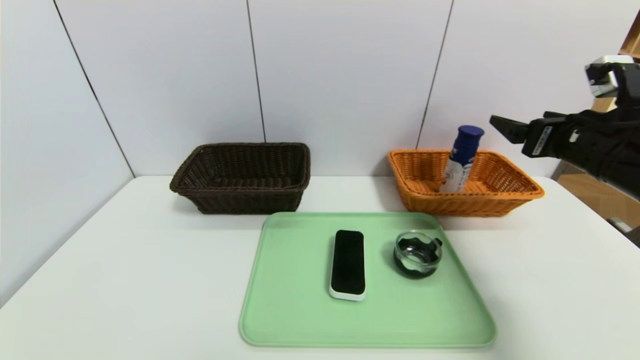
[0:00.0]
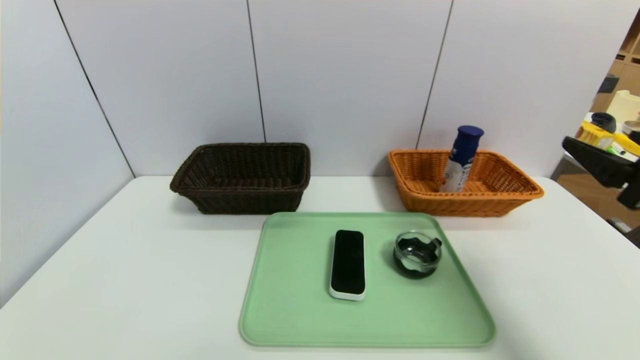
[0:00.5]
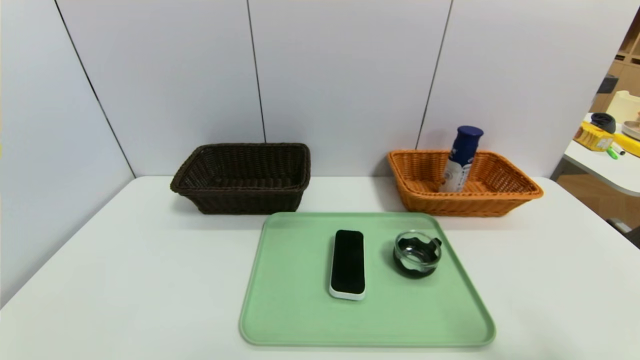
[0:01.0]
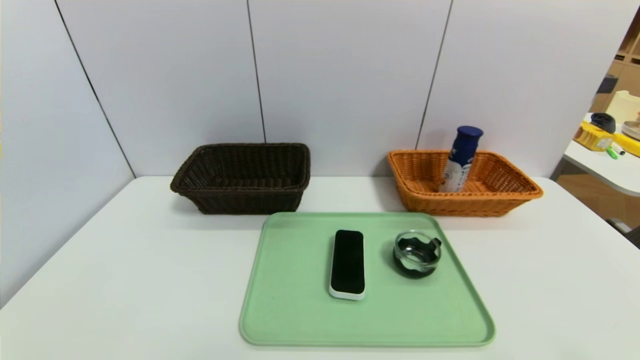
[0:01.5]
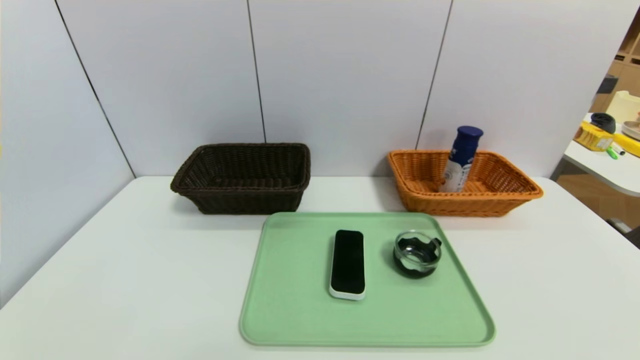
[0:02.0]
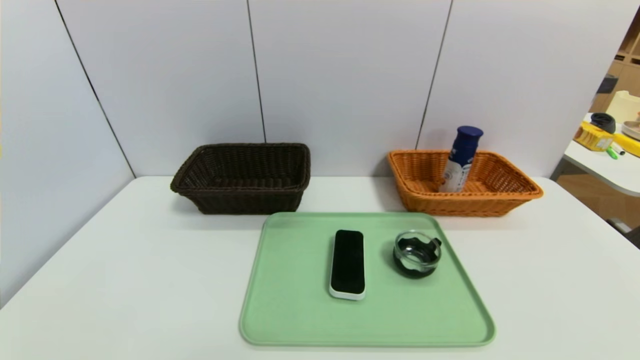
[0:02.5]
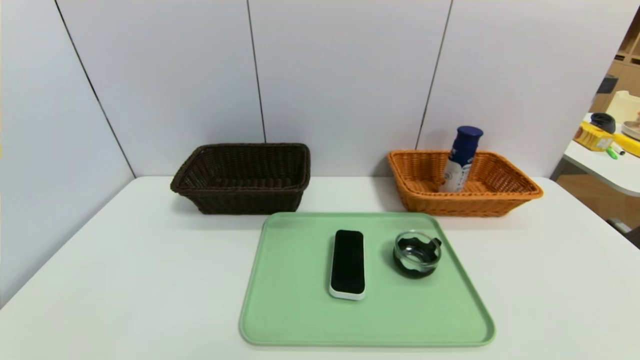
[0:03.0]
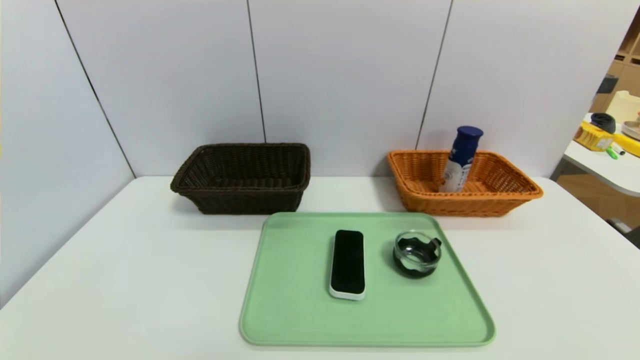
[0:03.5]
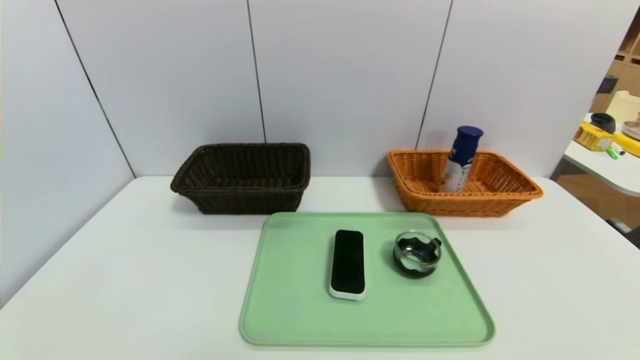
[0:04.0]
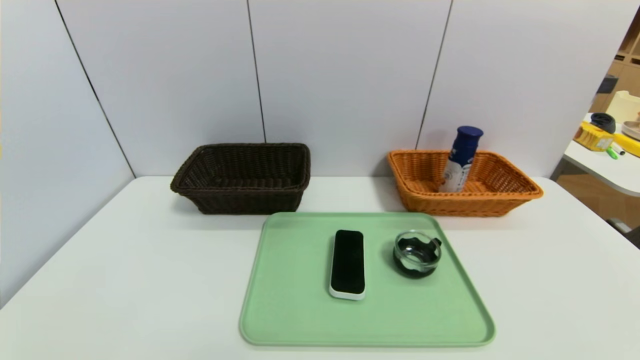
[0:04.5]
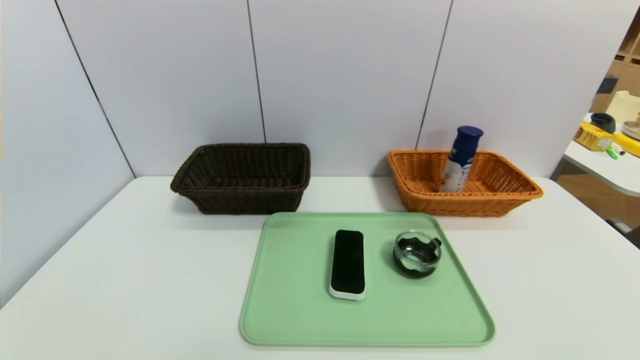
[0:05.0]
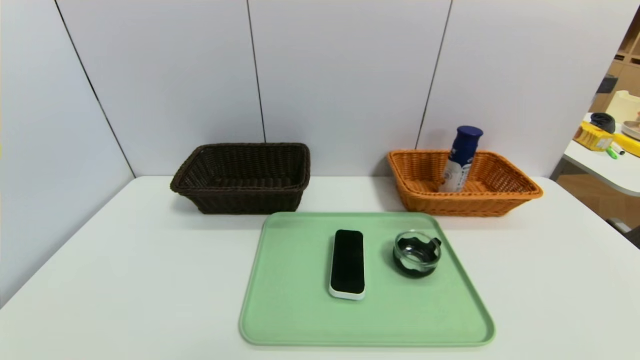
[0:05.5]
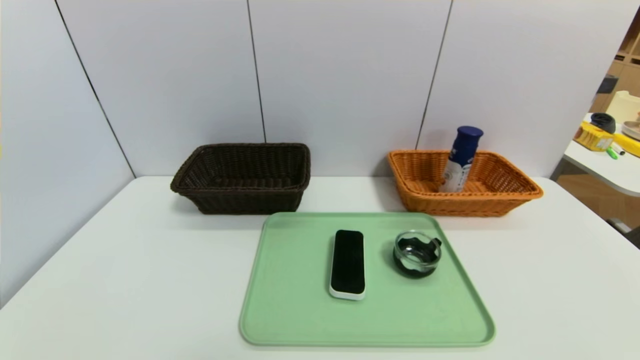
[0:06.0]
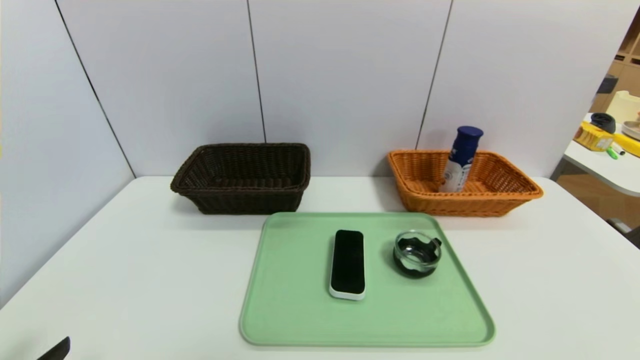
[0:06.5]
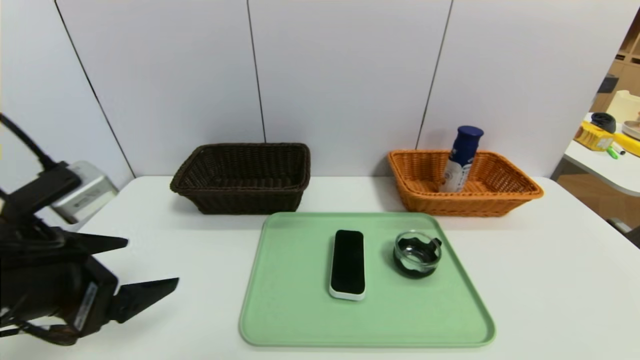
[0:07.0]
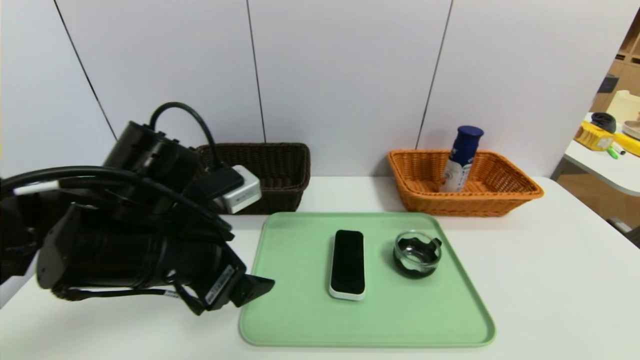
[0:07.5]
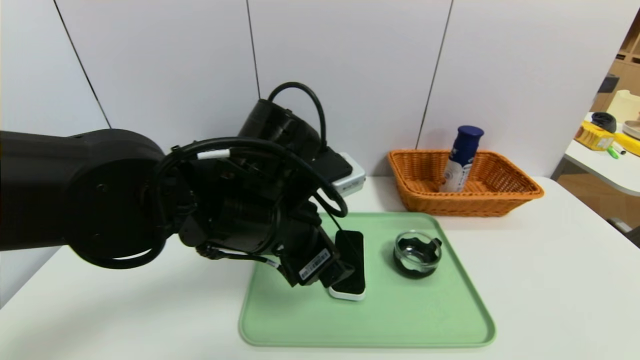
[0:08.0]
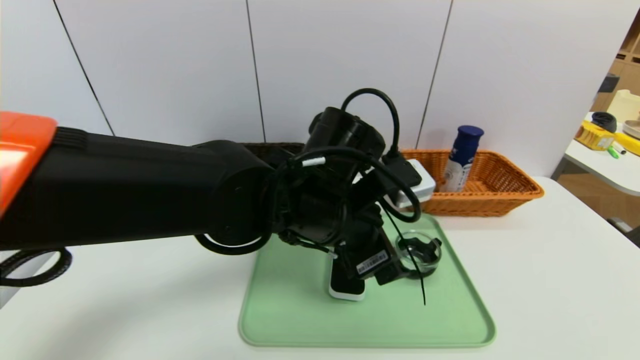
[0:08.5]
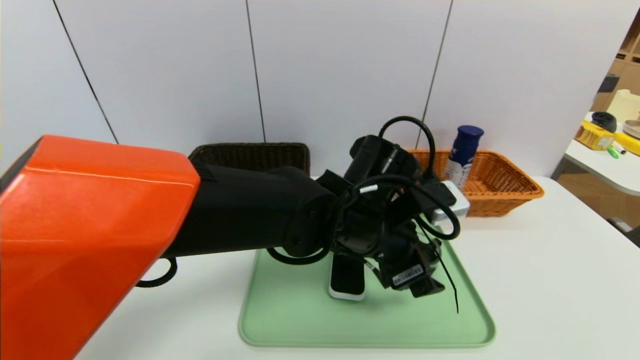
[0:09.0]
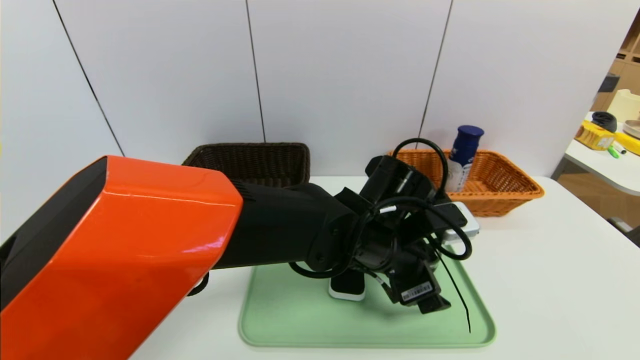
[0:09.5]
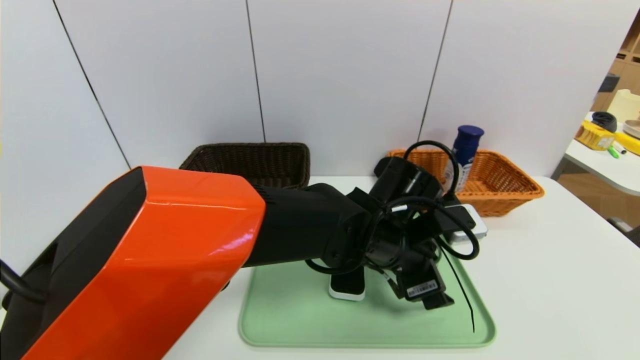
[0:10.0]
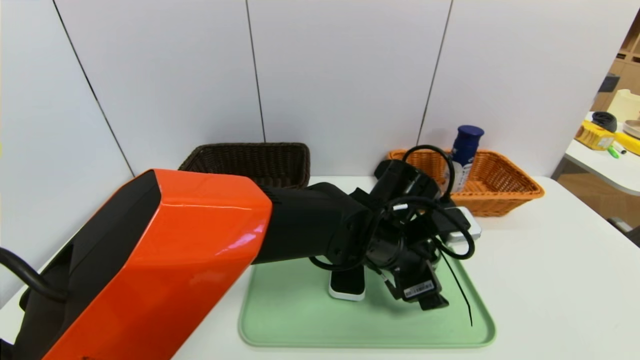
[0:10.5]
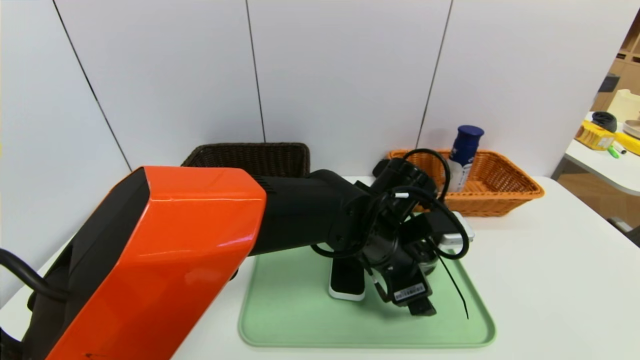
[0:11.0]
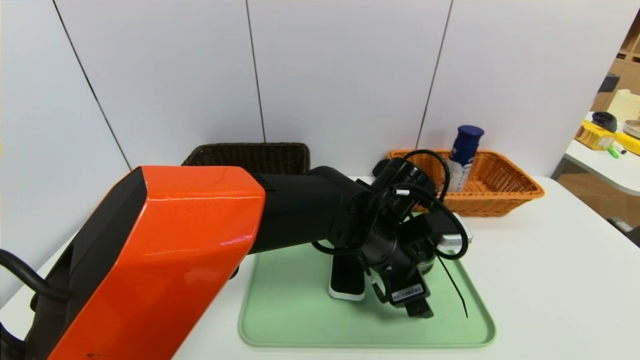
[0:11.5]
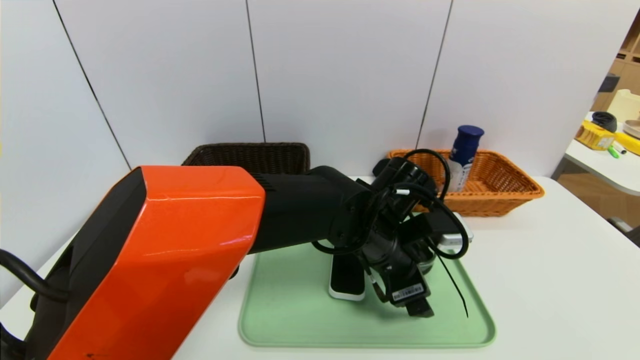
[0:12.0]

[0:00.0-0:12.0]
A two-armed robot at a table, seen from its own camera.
Task of the whole recording: place the food in the right basket with the right gripper, and place the non food items in the left basket with the left gripper.
0:00.0 to 0:02.0: The right gripper moves backward and downward, some 30 cm.
0:04.0 to 0:06.0: Both grippers stay about where they are.
0:06.0 to 0:08.0: The left gripper goes about 35 cm to the right, forward and upward.
0:08.0 to 0:10.0: The left gripper heads to the right and downward, covering some 15 cm.
0:10.0 to 0:12.0: The grippers stay close to where they were, moving slightly.

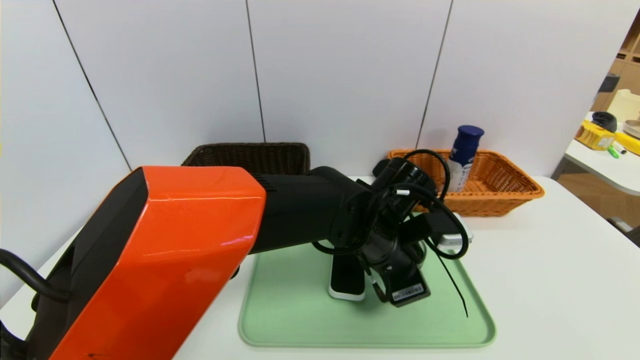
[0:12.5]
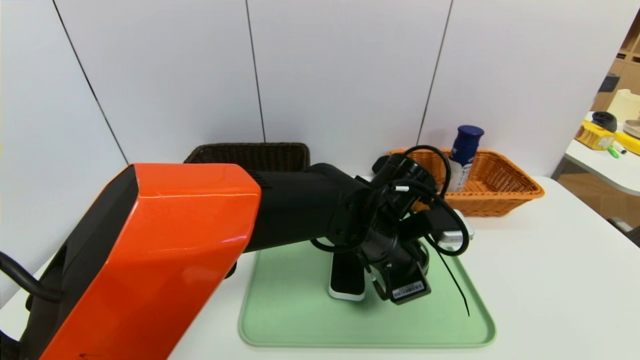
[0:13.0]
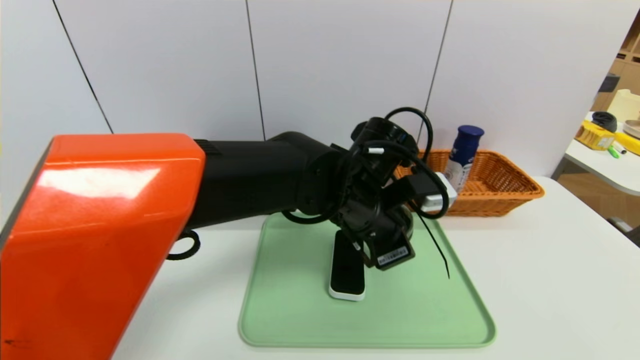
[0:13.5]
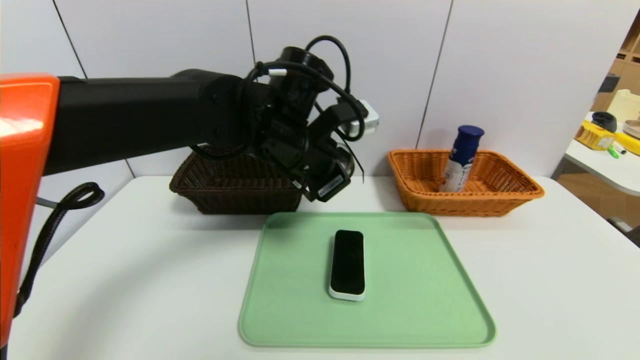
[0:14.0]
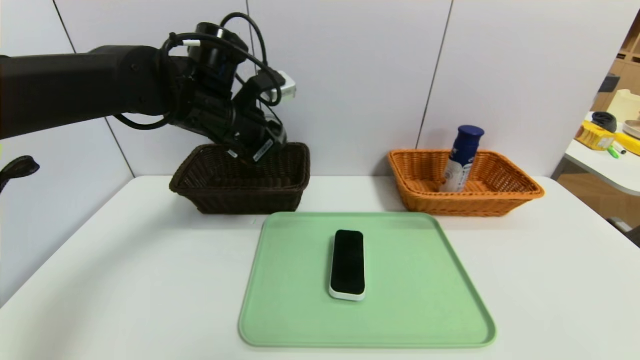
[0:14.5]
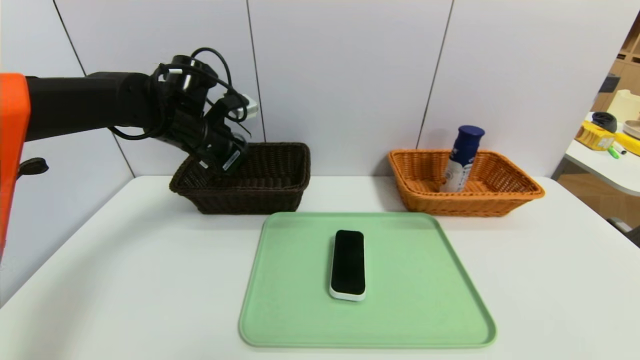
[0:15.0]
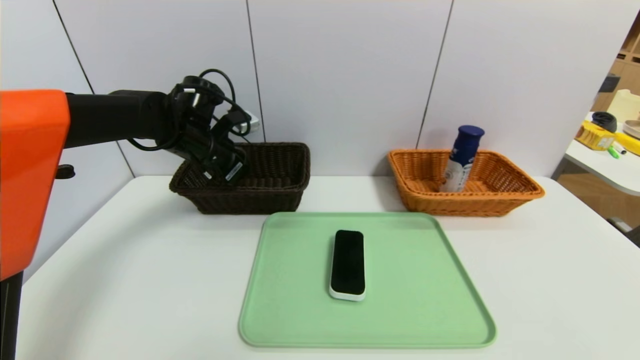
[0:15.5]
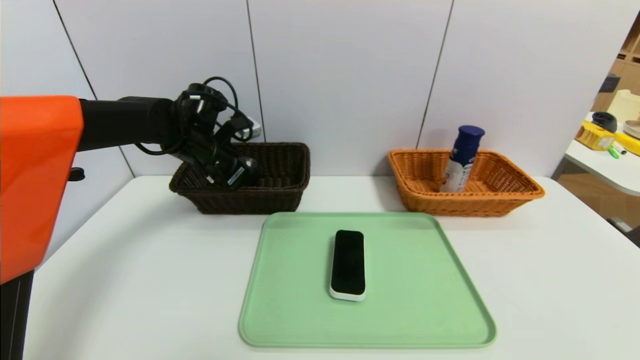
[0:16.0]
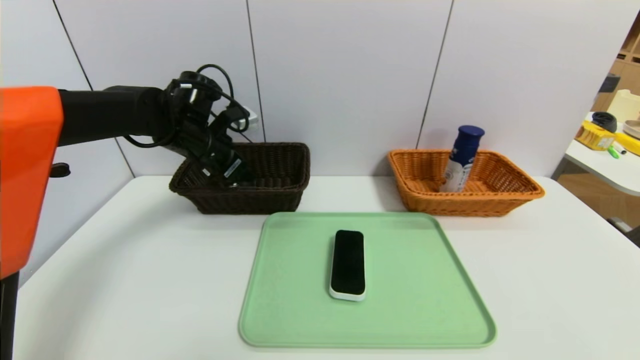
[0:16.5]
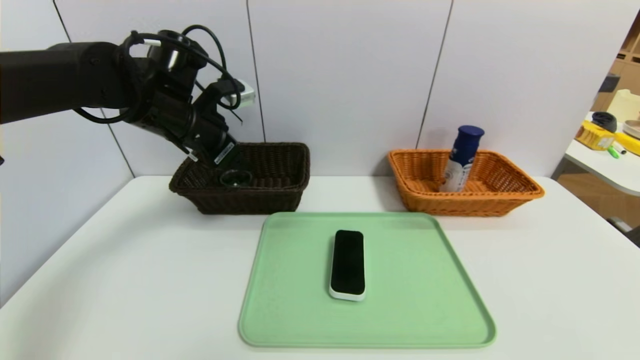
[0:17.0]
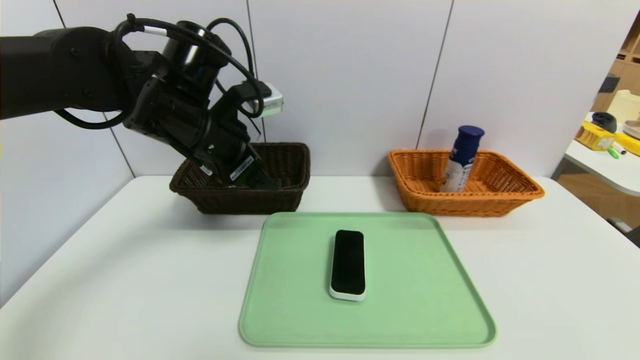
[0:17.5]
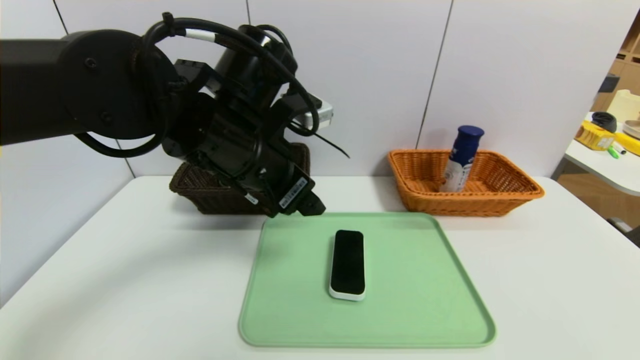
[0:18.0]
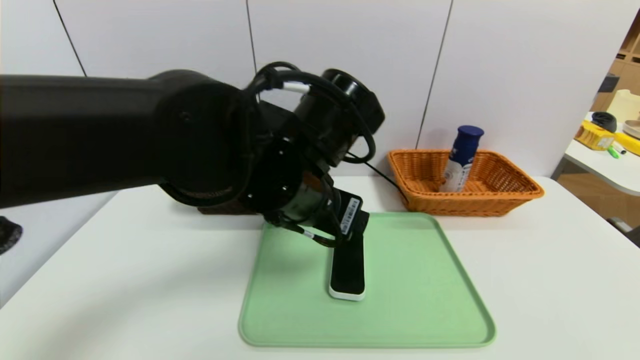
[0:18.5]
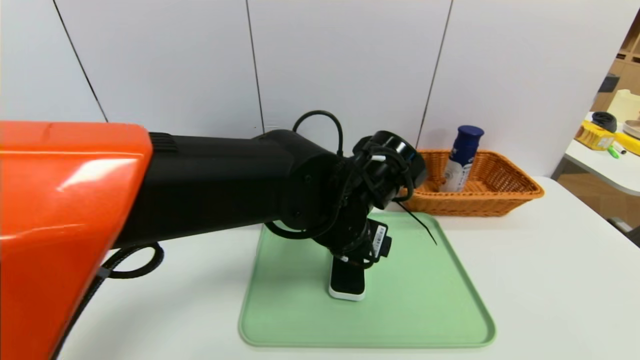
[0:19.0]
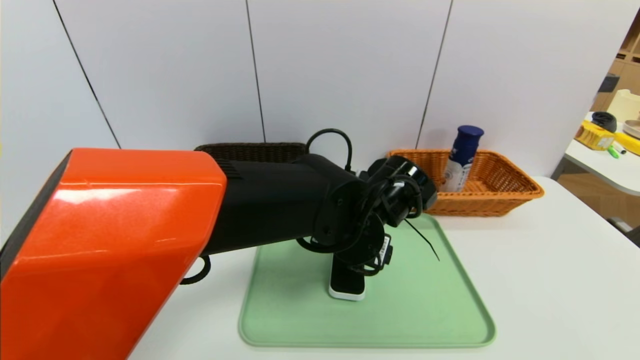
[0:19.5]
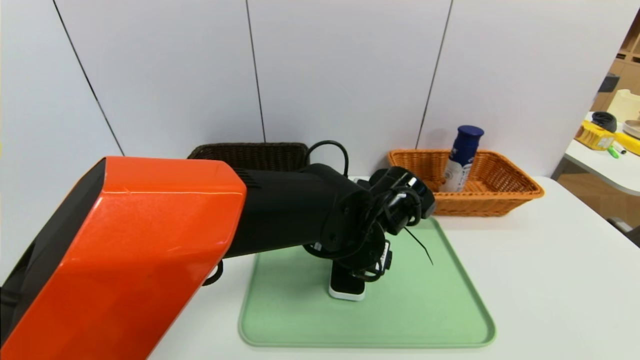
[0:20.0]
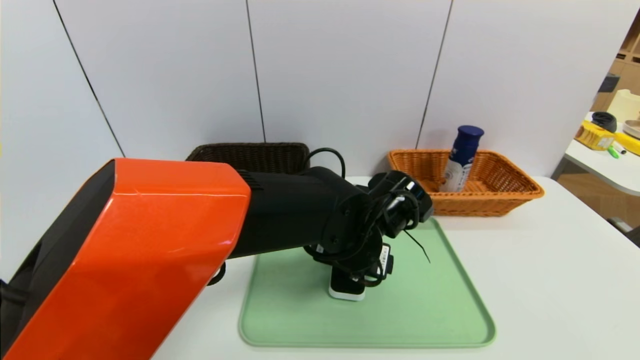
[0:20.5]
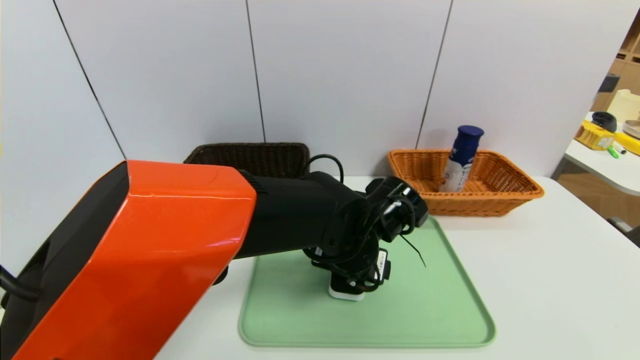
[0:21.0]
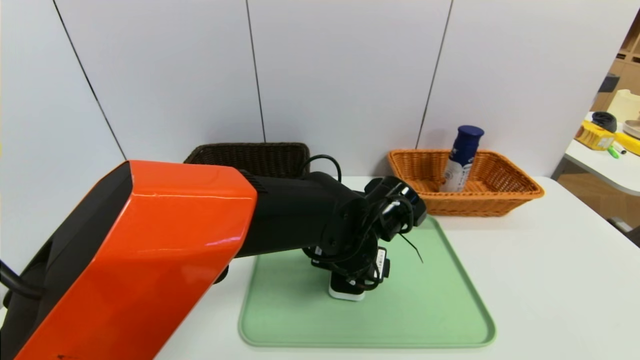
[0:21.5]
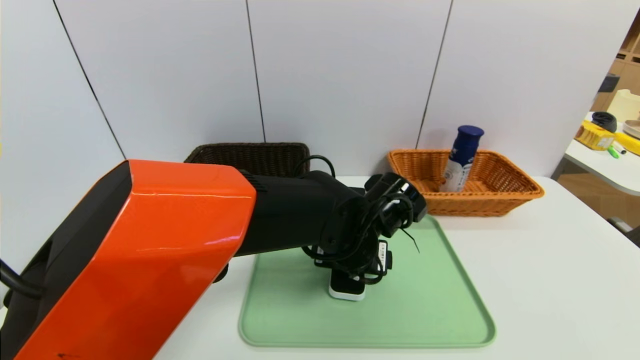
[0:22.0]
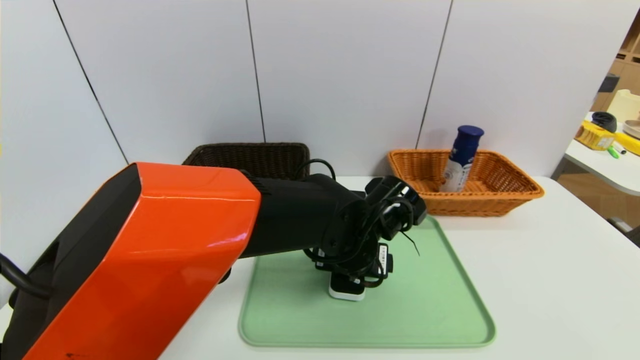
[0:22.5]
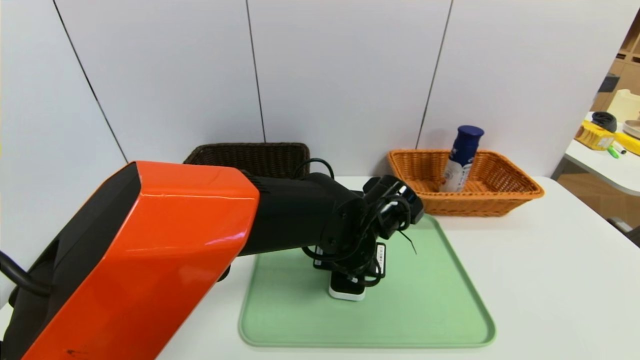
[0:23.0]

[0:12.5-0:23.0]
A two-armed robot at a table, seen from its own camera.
Task of the whole recording: place the food in the right basket with the right gripper, and place the non food items in the left basket with the left gripper.
Step, 0:12.5 to 0:16.0: Grasp the tea cup and put it in the left basket.
0:12.5 to 0:14.5: The left gripper moves to the left, upward and forward, some 25 cm, and closes its fingers.
0:14.5 to 0:16.5: The left gripper travels to the left, downward and forward by roughly 10 cm, and opens up.
0:16.5 to 0:19.0: The left gripper is displaced to the right and backward by some 30 cm.
0:19.0 to 0:21.0: The left gripper moves downward, approximately 5 cm.
0:21.0 to 0:23.0: The grippers make only small movements.
